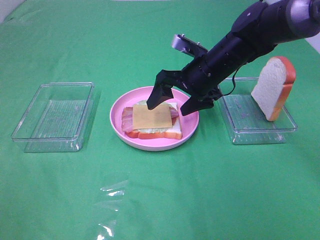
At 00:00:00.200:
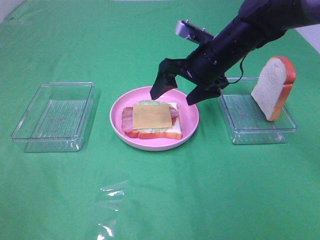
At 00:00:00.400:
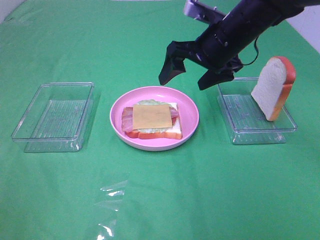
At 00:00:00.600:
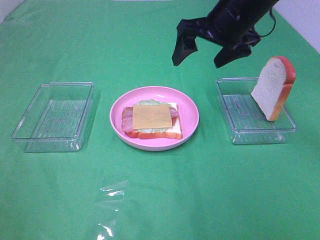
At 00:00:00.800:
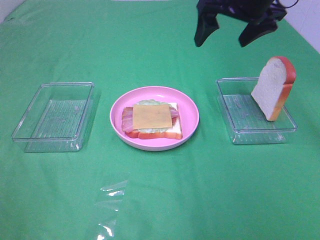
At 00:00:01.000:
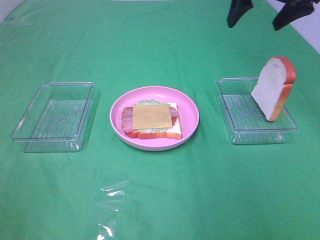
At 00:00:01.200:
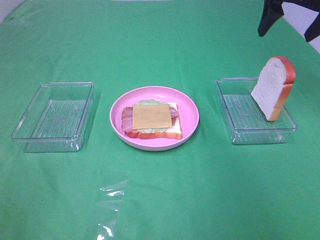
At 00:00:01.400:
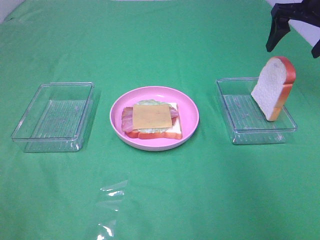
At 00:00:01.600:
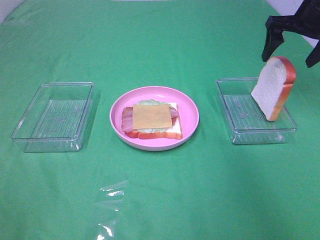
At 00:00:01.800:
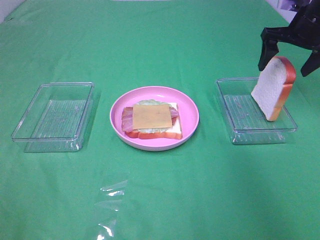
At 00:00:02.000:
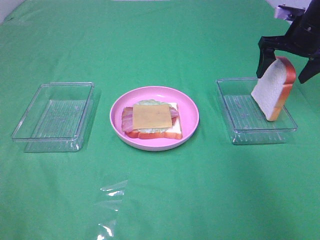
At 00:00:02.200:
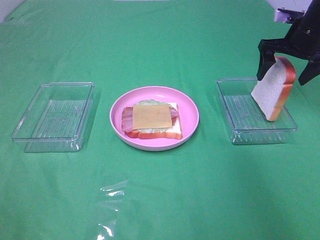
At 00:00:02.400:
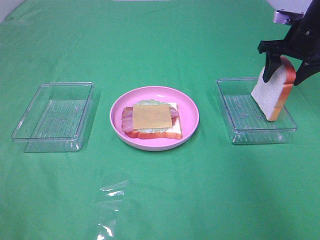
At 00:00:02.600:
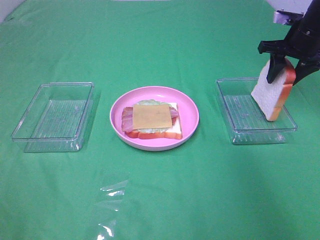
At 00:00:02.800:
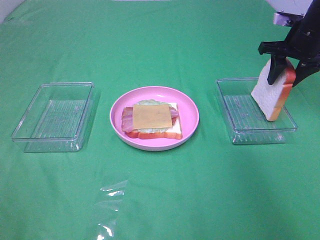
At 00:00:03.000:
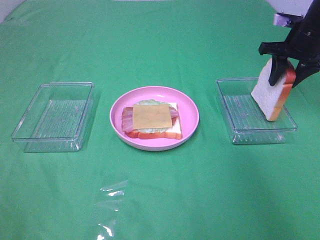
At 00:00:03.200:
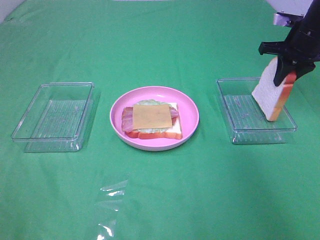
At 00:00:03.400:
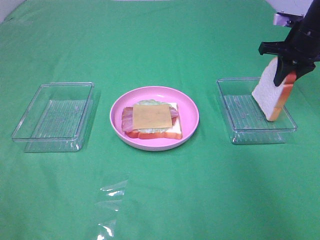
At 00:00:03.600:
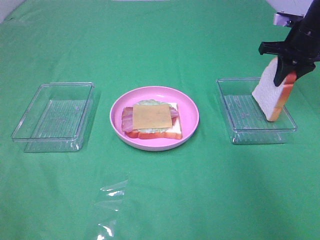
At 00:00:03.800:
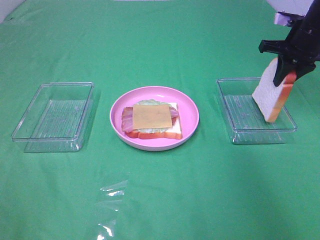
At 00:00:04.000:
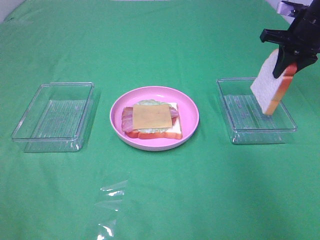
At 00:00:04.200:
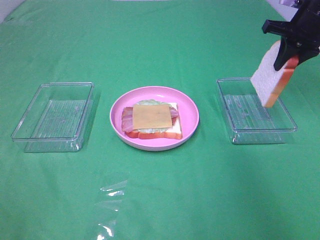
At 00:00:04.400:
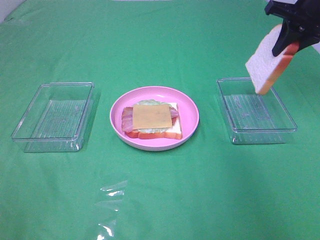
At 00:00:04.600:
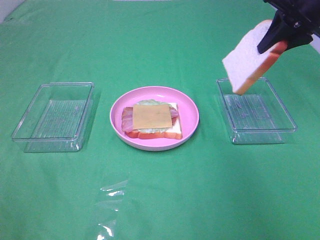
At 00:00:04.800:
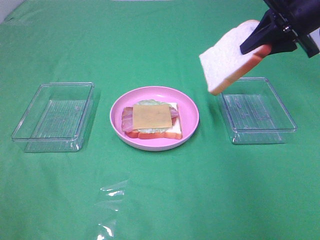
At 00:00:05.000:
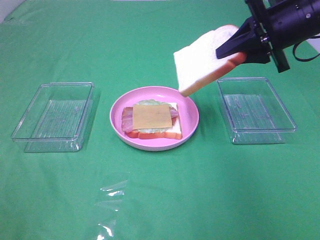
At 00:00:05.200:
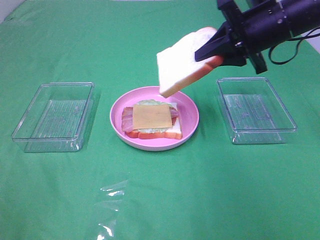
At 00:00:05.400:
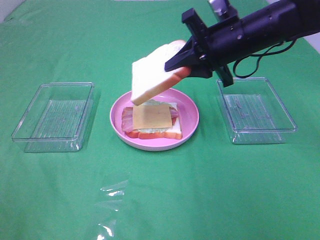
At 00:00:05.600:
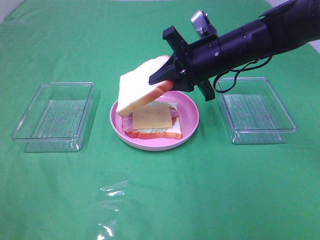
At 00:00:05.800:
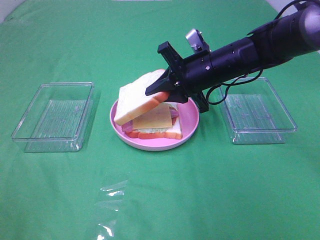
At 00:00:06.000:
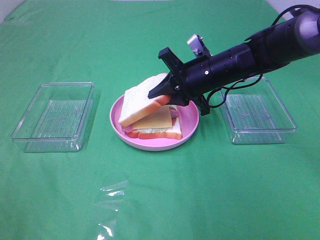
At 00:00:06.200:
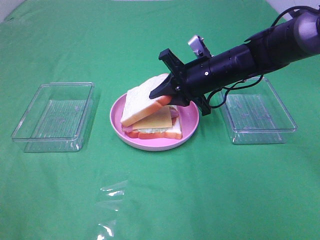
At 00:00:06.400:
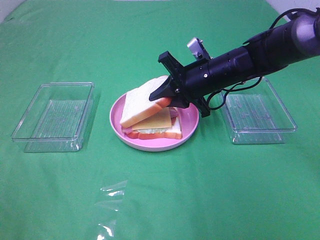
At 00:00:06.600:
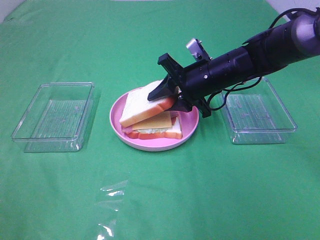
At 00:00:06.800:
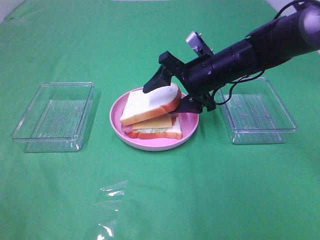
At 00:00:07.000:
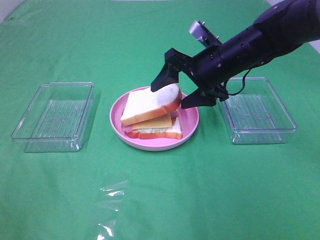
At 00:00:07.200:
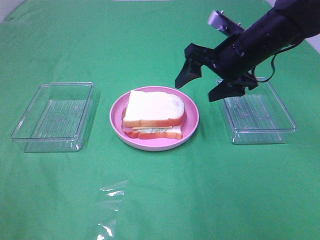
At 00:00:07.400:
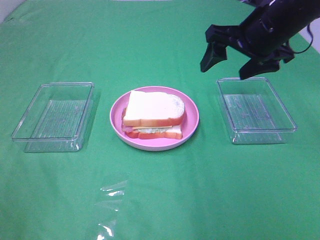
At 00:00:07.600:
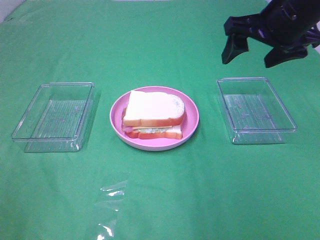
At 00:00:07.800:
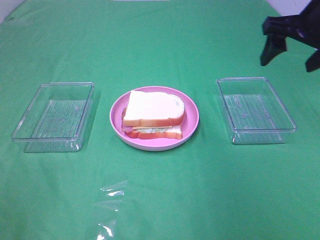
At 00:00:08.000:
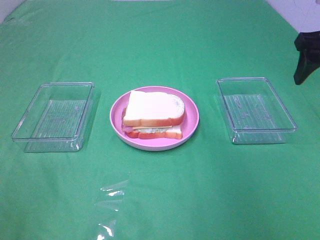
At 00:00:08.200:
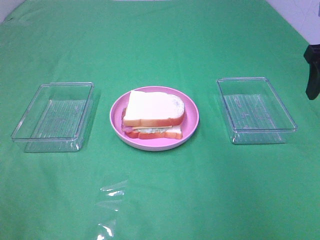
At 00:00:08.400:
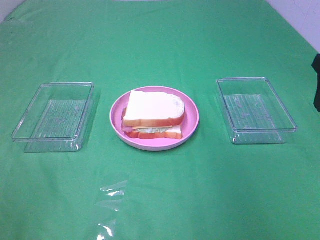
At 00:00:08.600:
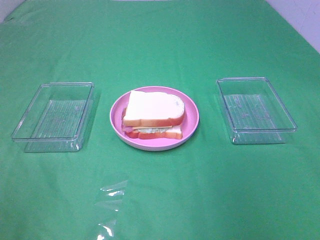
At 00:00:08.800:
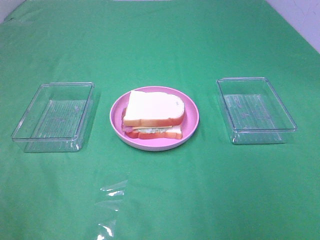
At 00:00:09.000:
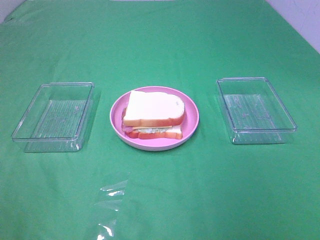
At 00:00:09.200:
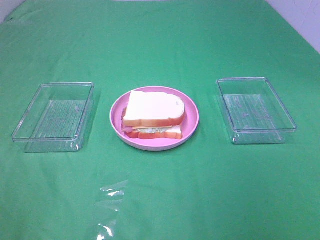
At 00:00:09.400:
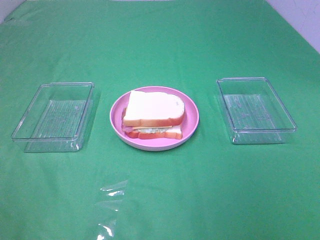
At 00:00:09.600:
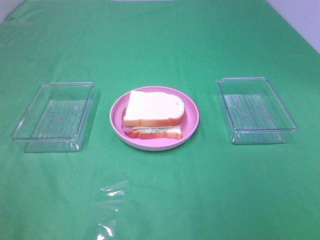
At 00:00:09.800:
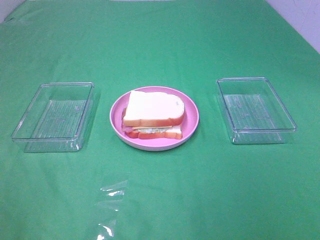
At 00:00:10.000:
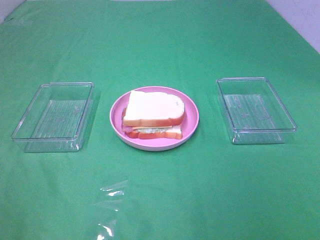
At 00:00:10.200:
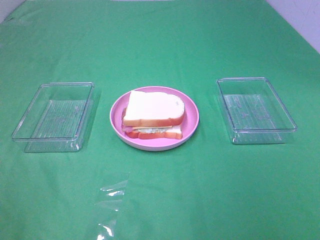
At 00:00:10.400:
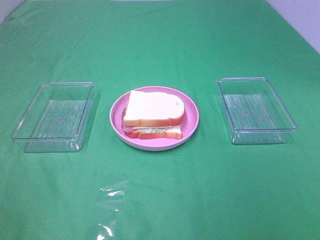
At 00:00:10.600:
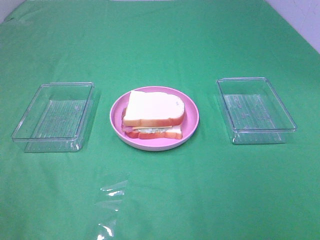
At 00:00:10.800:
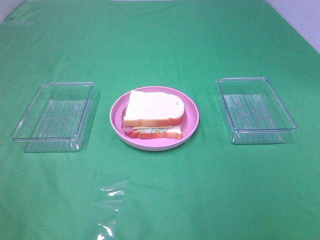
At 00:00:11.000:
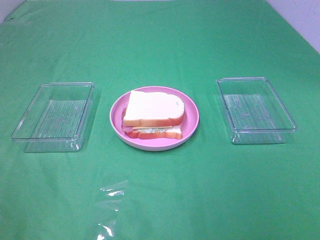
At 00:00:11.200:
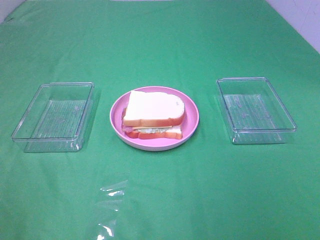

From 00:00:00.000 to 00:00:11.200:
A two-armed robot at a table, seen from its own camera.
Task of the whole recording: Make sandwiches.
Step, from 00:00:00.200 to 00:00:03.600: Right hand:grab the bread slice.
Step, from 00:00:03.800 to 00:00:07.000: Right hand:place the bread slice on the cheese slice.
From 00:00:00.000 to 00:00:01.600: The right gripper is displaced to the right and upward by roughly 20 cm.
From 00:00:01.600 to 00:00:03.200: The right gripper closes up.
From 00:00:03.200 to 00:00:04.800: The right gripper is displaced backward, upward and to the left by some 15 cm.
From 00:00:04.800 to 00:00:06.400: The right gripper heads downward and to the left, covering about 20 cm.
From 00:00:06.400 to 00:00:08.000: The right gripper shifts some 25 cm to the right and upward, and opens its fingers.
From 00:00:08.000 to 00:00:09.600: The right gripper travels backward by about 30 cm.
